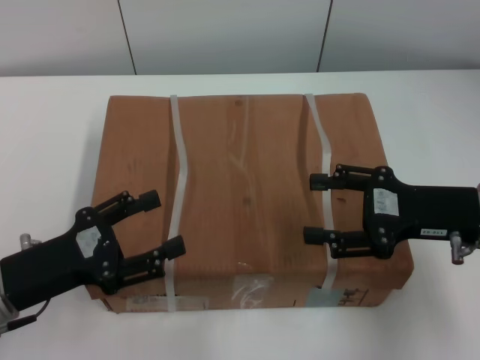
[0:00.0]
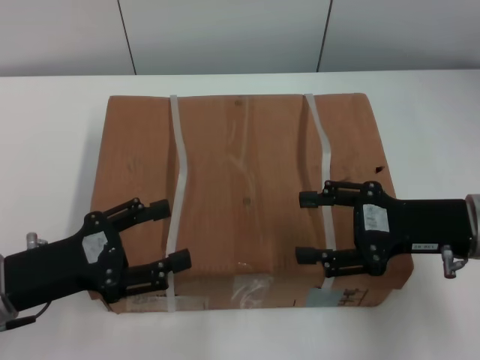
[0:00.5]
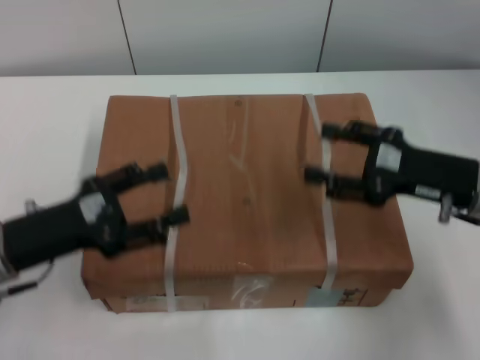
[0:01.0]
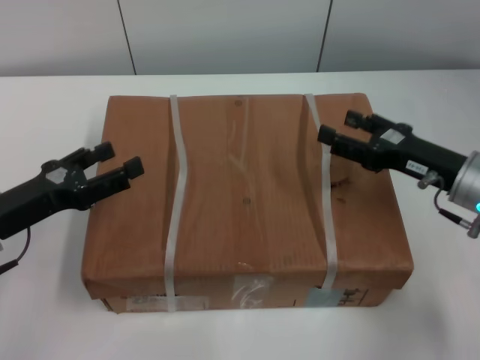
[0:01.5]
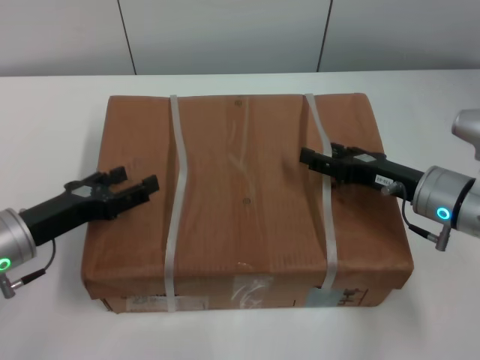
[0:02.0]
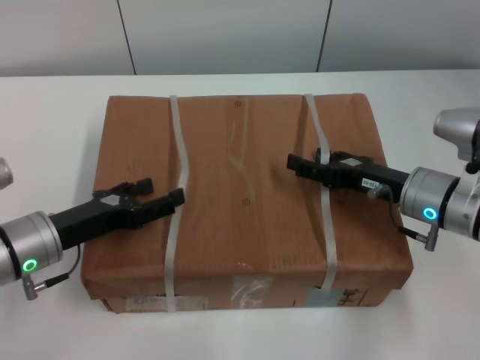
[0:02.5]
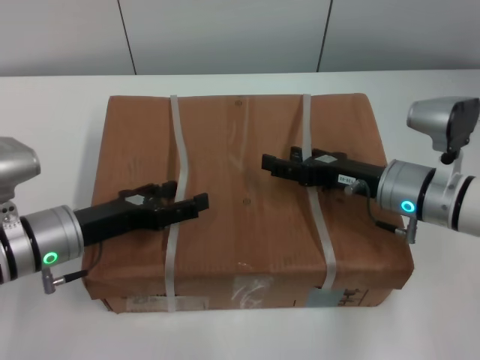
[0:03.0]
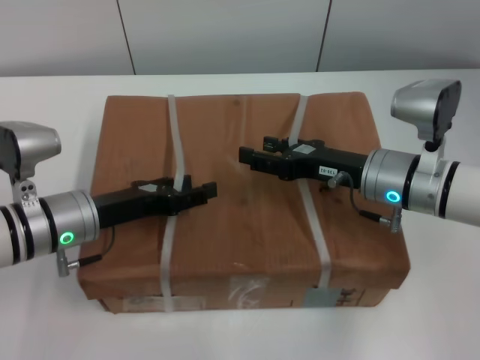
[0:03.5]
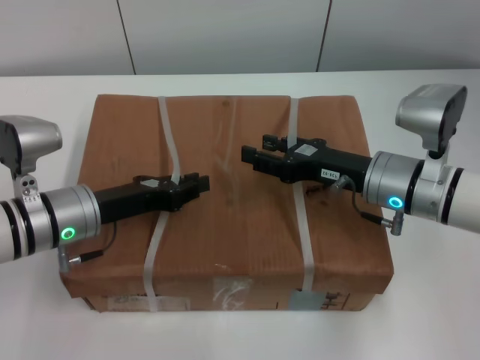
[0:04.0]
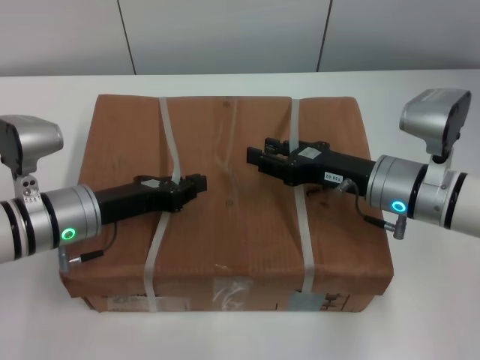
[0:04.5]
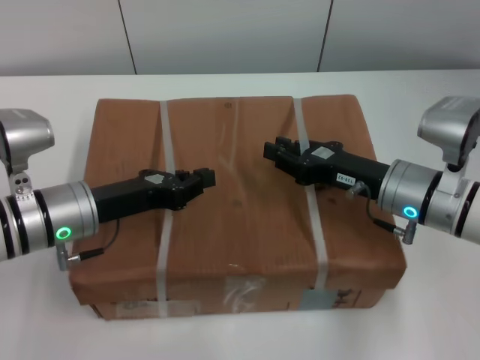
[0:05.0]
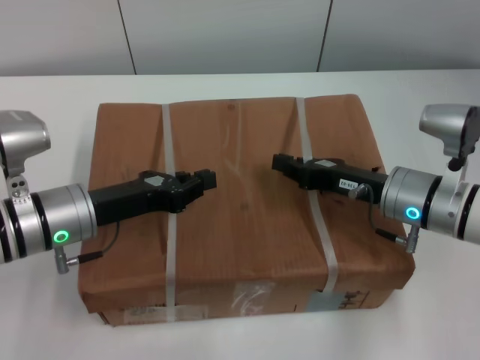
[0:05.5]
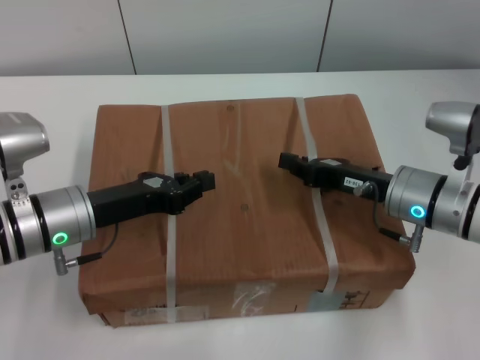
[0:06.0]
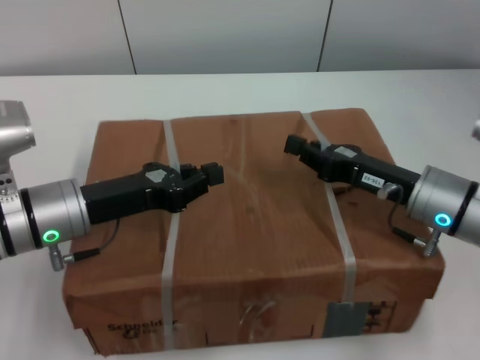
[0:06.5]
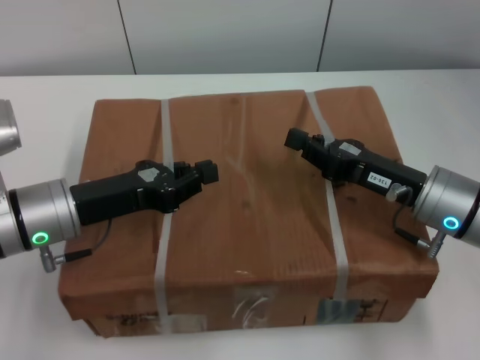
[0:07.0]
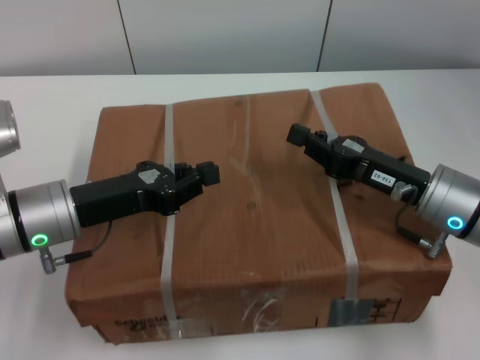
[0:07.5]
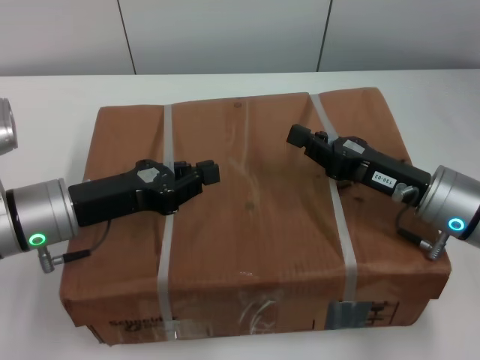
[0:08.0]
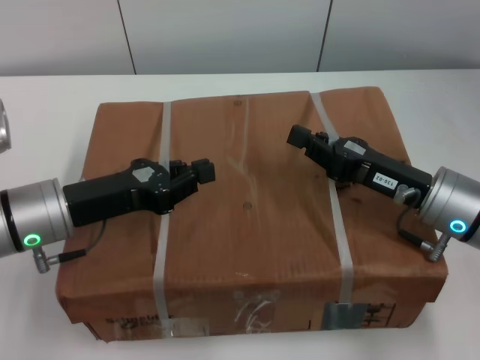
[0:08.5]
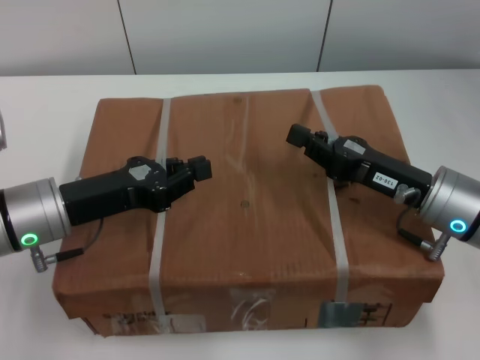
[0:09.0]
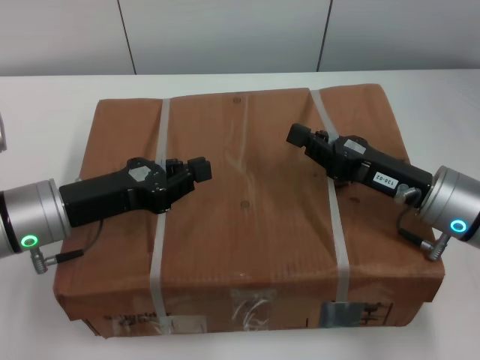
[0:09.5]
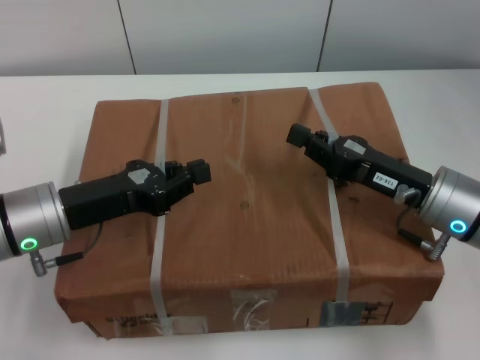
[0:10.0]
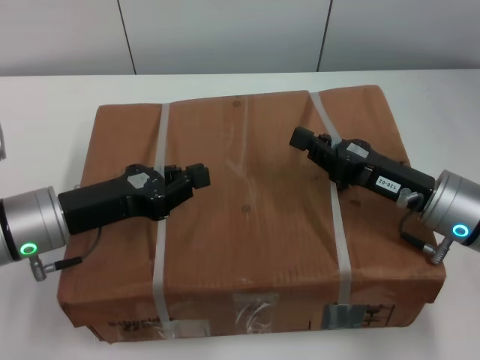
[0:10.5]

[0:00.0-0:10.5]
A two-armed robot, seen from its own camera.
Task of the whole recording: pick up the box from the table with both arms.
Step, 0:00.0 to 0:05.5: Grasp the bandage with left gripper.
Step, 0:00.0 to 0:05.5: Grasp the bandage with right gripper.
Step, 0:06.0 to 0:07.0: Lift the box with left gripper.
Step, 0:06.0 to 0:07.0: Lift the box with right gripper.
0:00.0 to 0:02.0: The right gripper travels downward by some 5 cm; the left gripper travels forward by approximately 5 cm.
0:02.0 to 0:04.0: The right gripper heads to the left, covering about 5 cm. Meanwhile the left gripper is displaced to the right by approximately 5 cm, and closes its fingers.
0:04.0 to 0:06.5: The left gripper closes, while the right gripper closes up.
0:06.5 to 0:08.5: The grippers move only a little.
0:08.5 to 0:10.5: Neither gripper changes place.
